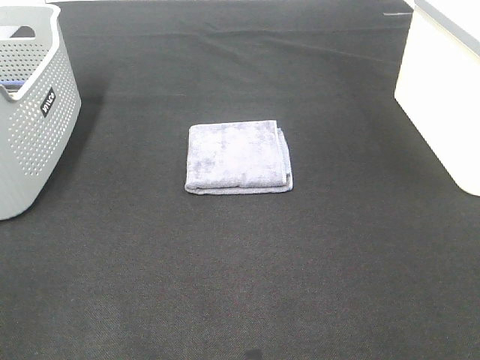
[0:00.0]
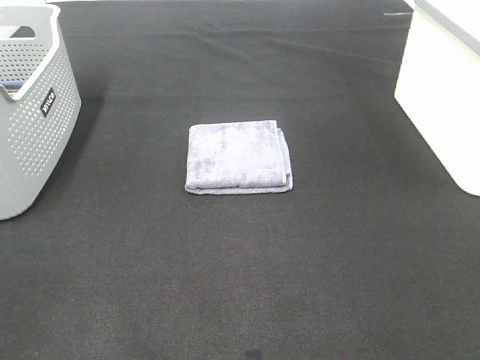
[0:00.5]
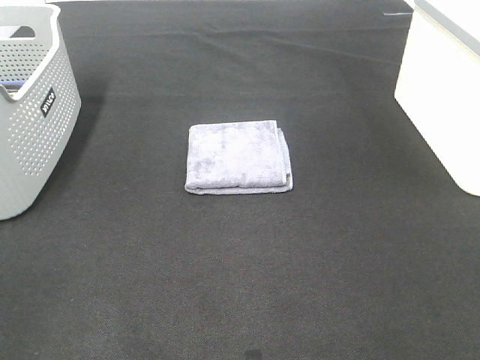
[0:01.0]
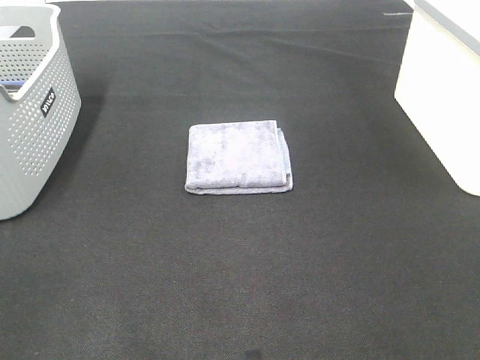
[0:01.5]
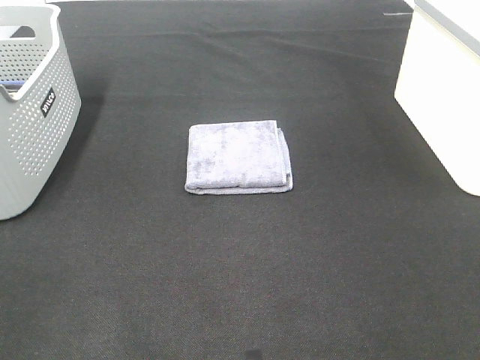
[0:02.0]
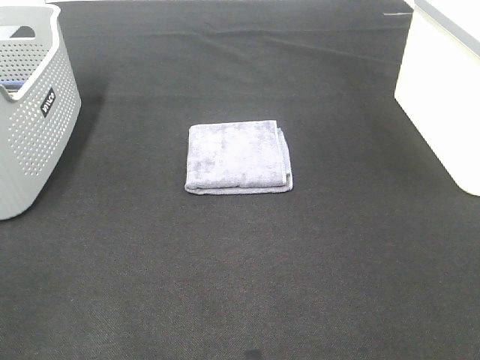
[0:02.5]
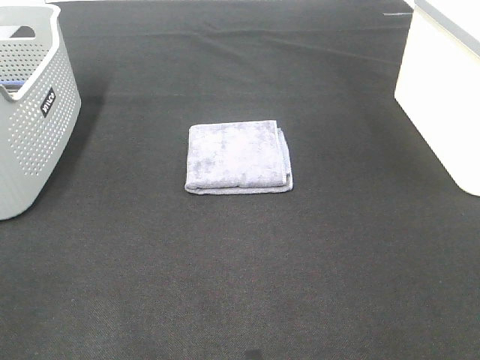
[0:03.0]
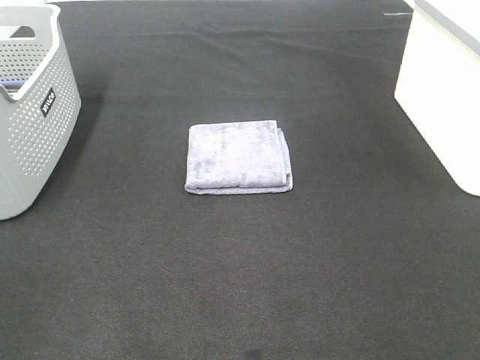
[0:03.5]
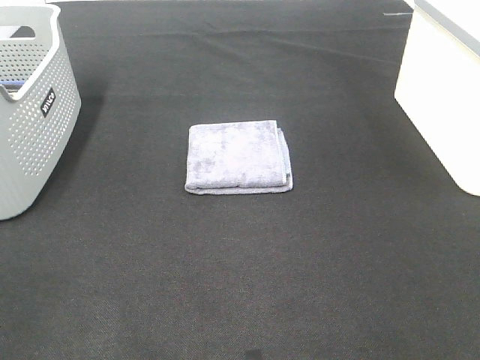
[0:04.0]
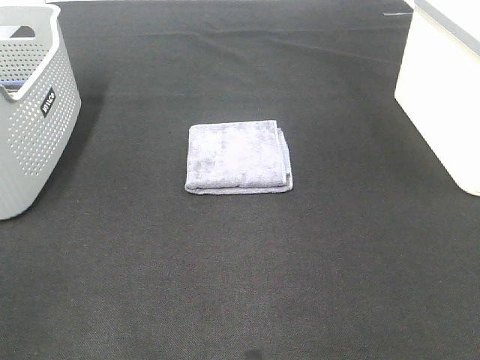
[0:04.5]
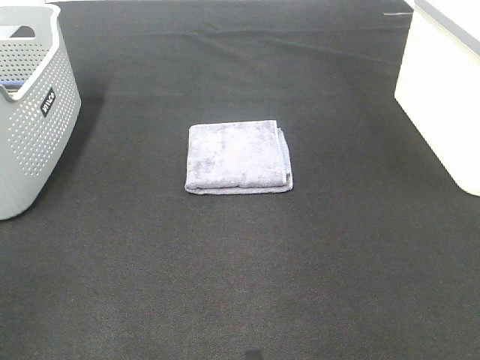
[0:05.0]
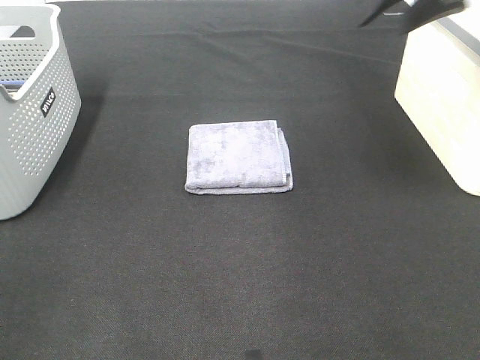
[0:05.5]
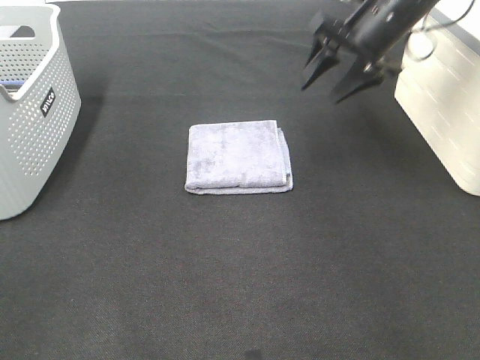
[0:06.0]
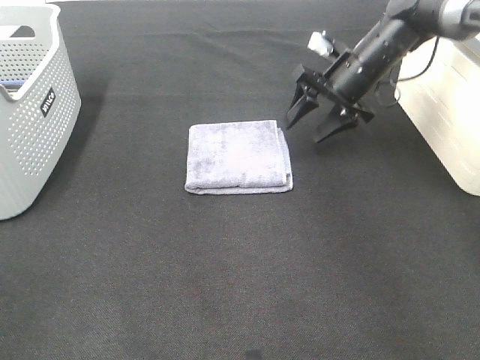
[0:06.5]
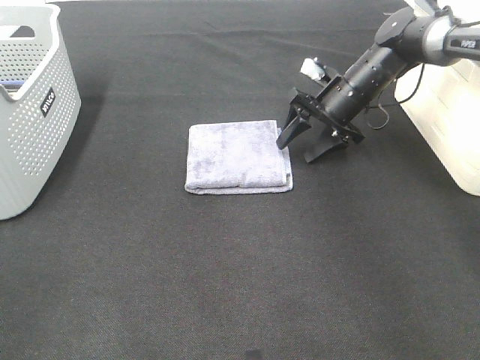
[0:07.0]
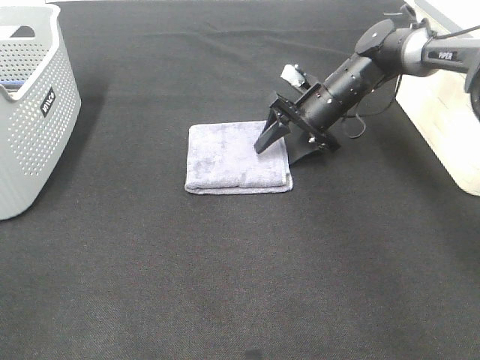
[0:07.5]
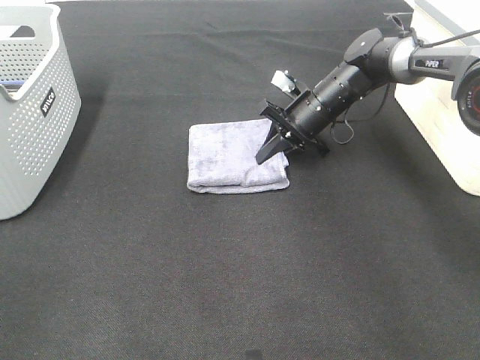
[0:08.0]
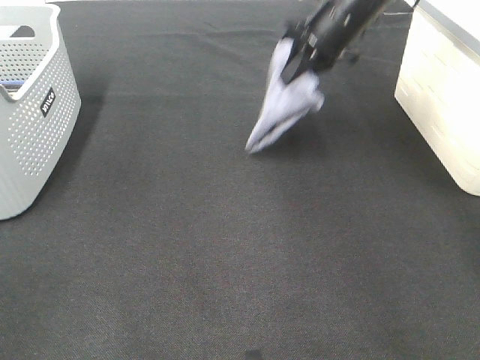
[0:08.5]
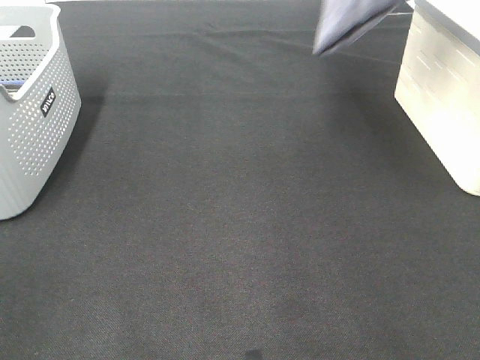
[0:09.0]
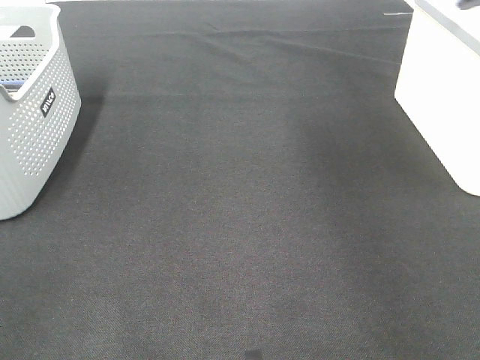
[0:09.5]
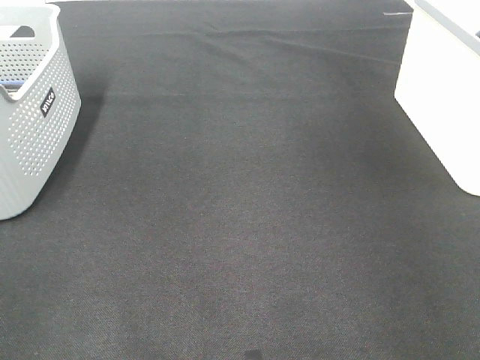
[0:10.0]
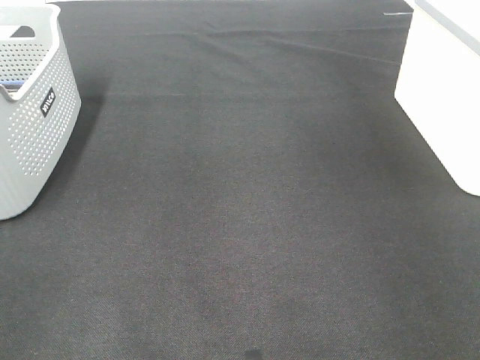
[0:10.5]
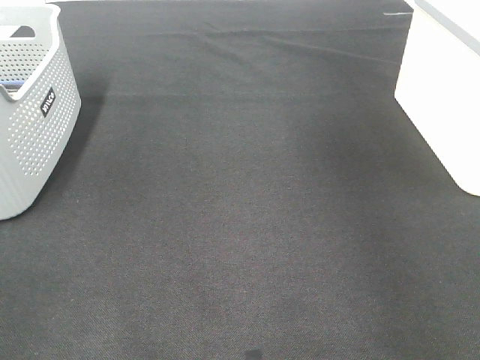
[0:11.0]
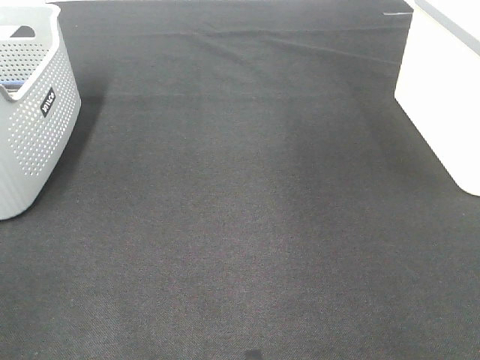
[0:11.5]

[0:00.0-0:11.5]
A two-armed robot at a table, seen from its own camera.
Step, 0:00.0 to 0:08.0: Right hand: grab the folded grey towel.
Step, 0:08.5 to 0:10.0: Right hand: place the grey towel in right basket.
0:00.0 to 0:02.0: Both grippers stay put.
0:04.0 to 0:06.0: The right gripper travels forward by some 40 cm.
0:06.0 to 0:07.5: The right gripper travels downward by approximately 15 cm.
0:07.5 to 0:09.5: The right gripper travels upward and to the right by about 40 cm, and closes its fingers.

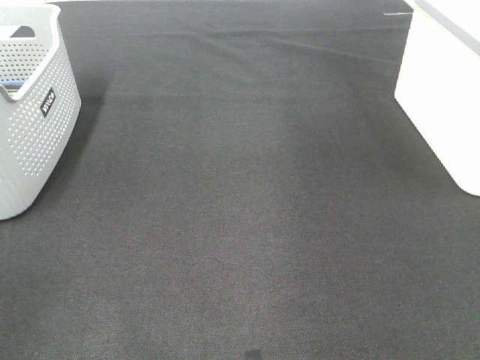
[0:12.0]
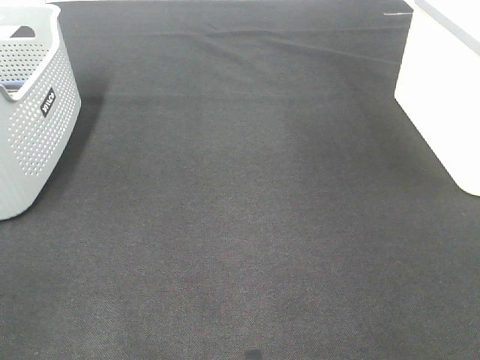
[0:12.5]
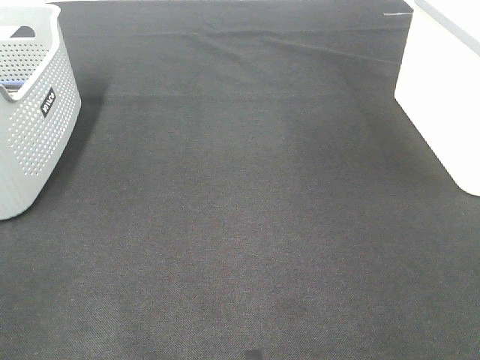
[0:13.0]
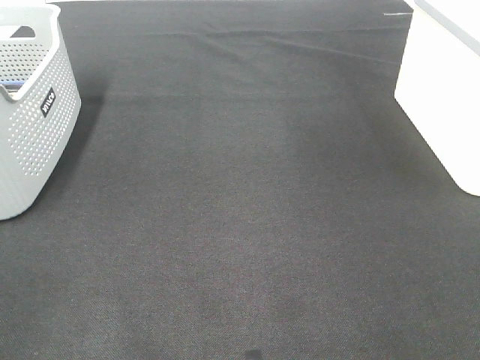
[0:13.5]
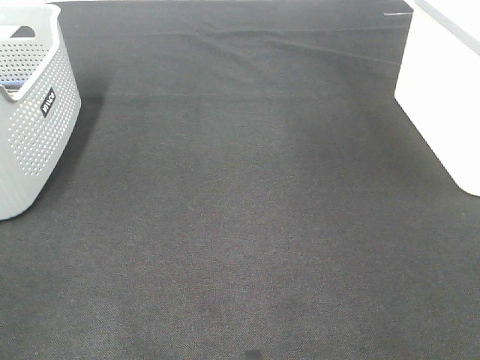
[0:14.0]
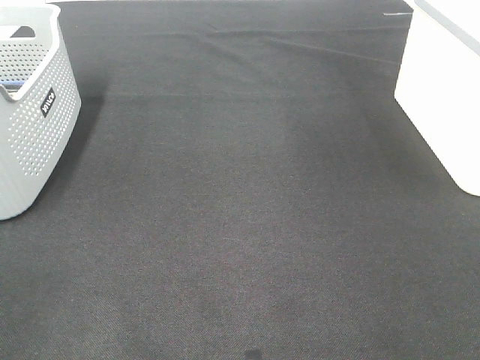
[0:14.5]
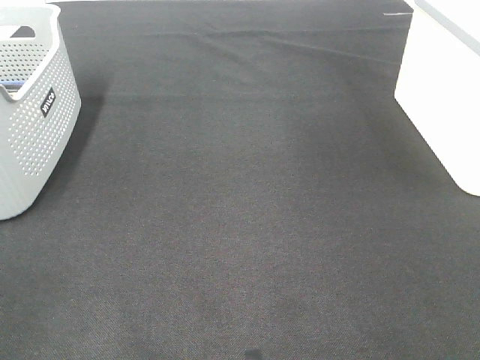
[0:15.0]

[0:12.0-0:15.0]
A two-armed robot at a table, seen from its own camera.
0:13.5 to 0:15.0: Neither gripper changes place.

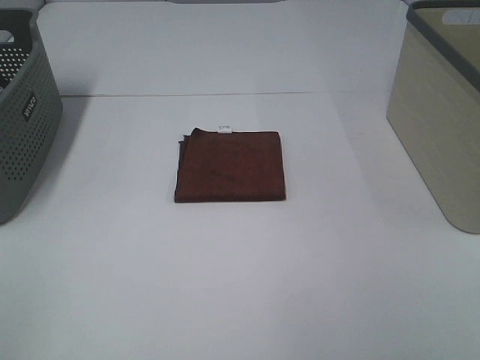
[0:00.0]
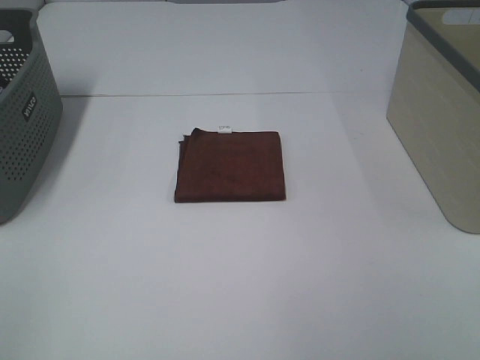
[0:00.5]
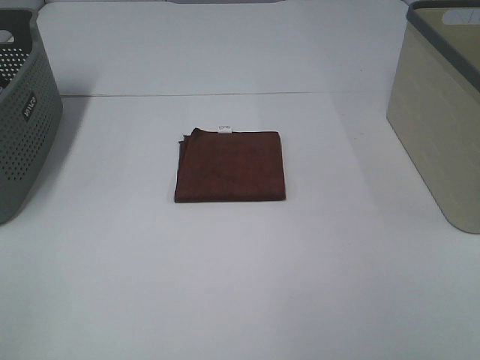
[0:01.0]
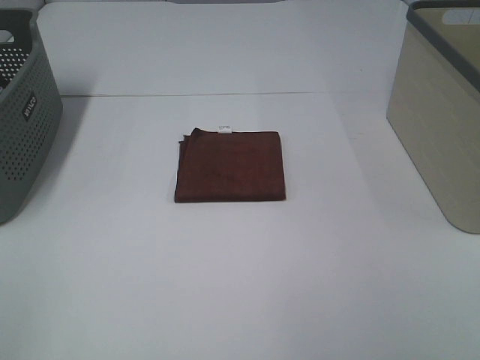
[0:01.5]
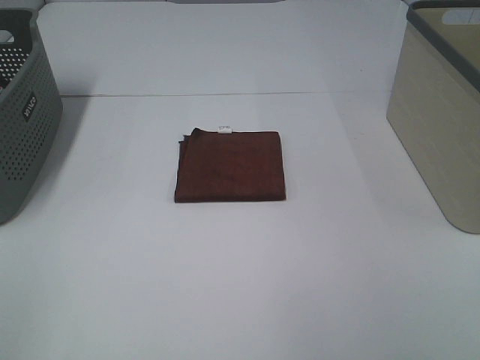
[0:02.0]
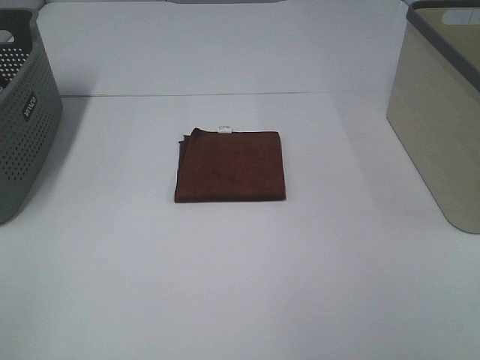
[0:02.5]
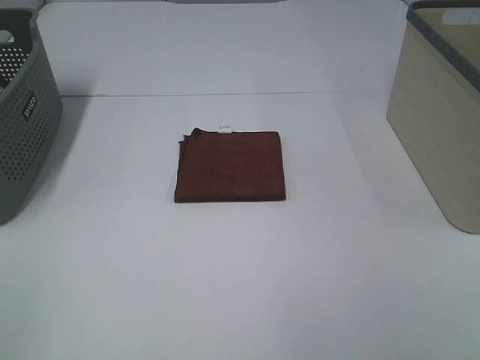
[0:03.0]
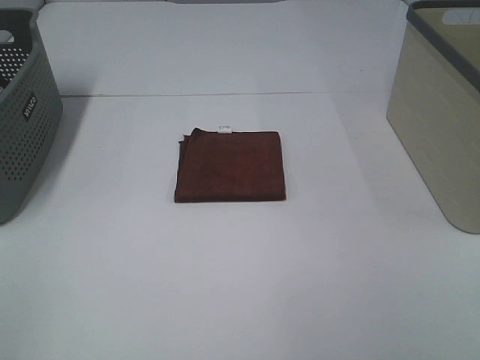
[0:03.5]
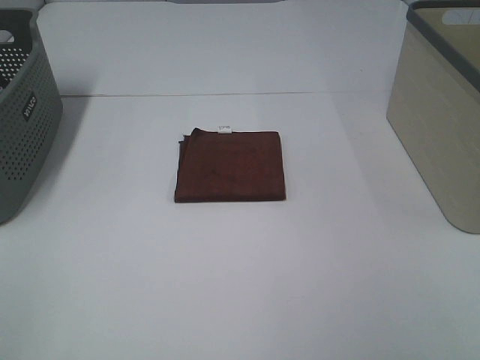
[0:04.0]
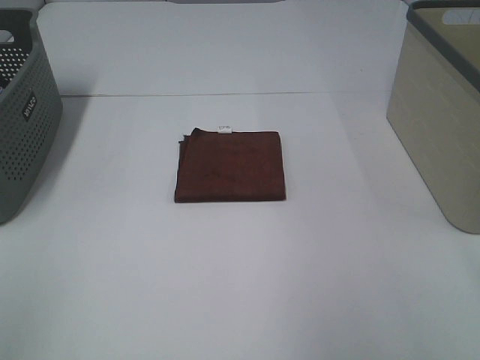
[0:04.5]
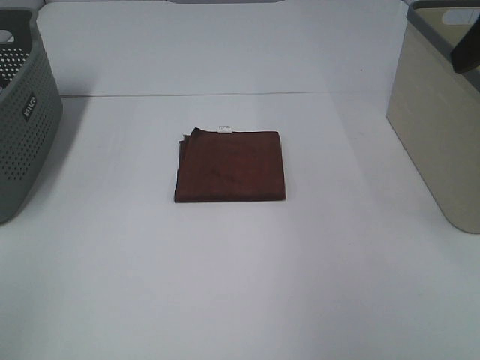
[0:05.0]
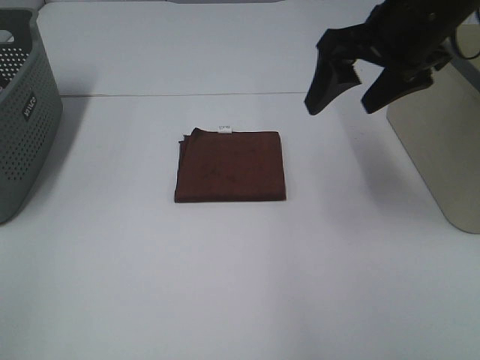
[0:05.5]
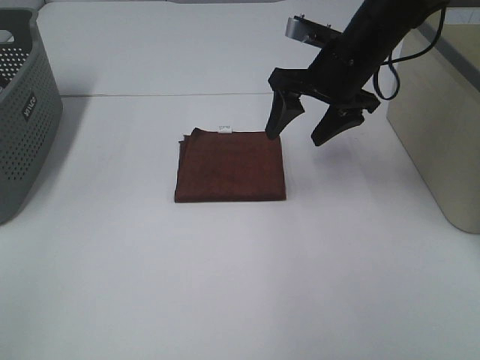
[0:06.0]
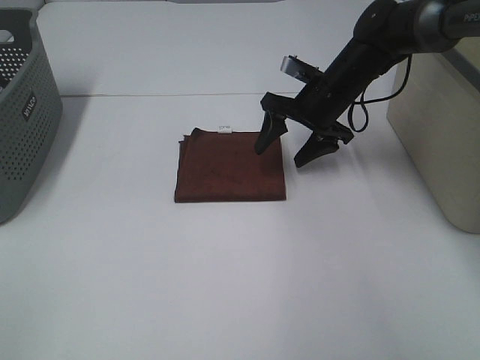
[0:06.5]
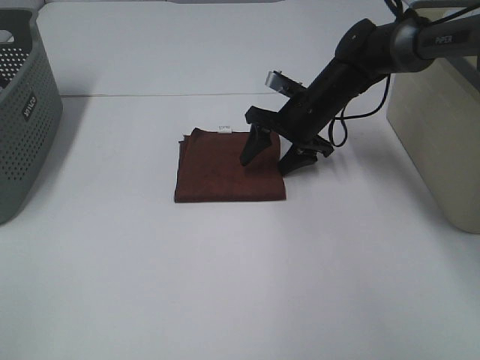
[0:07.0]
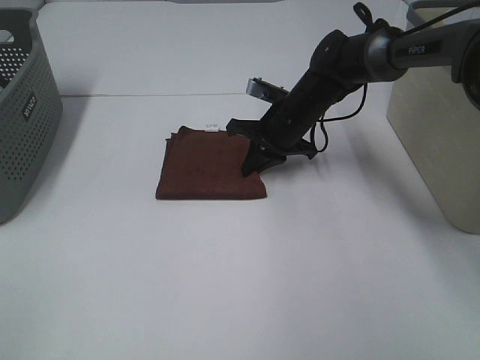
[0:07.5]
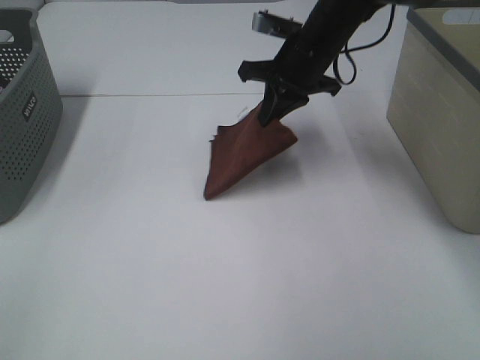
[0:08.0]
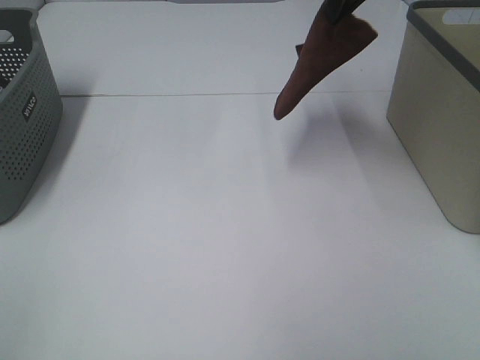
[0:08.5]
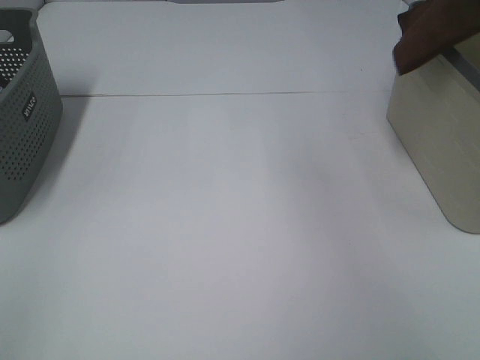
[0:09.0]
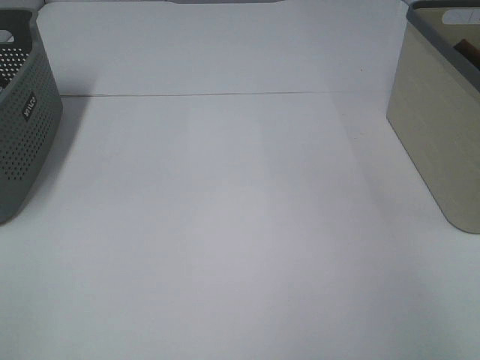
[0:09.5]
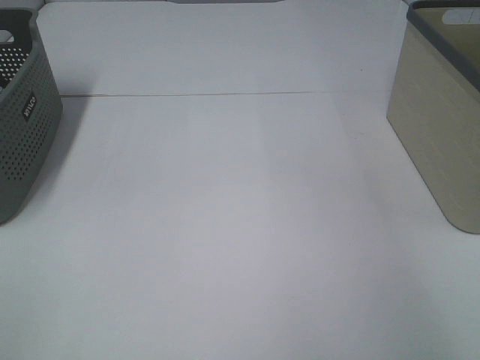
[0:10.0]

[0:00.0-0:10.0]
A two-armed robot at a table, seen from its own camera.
Step, 0:00.0 to 0:07.0: Right hand: grab the folded brown towel.
Step, 0:07.5 to 0:09.5: Right hand: place the brown towel in right basket.
0:00.0 to 0:02.0: Both grippers stay about where they are.
0:04.0 to 0:06.0: The right gripper travels forward and to the left by some 40 cm.
0:06.0 to 0:08.0: The right gripper goes downward and returns, about 10 cm each way, and closes up.
0:08.0 to 0:10.0: The right gripper heads to the right and upward, covering about 35 cm, and opens up.

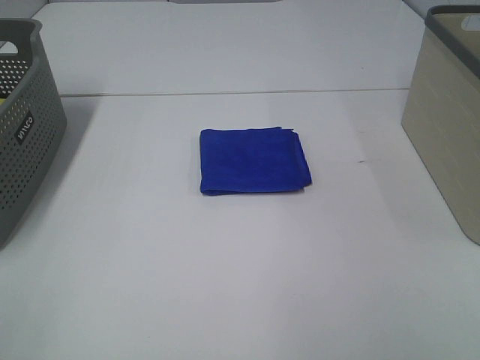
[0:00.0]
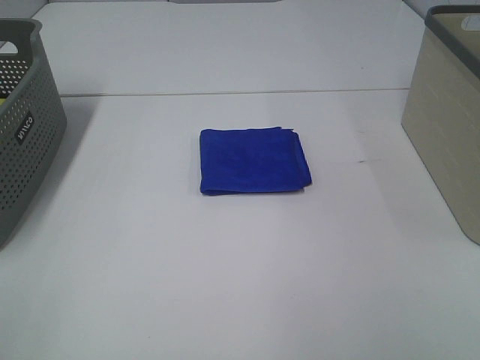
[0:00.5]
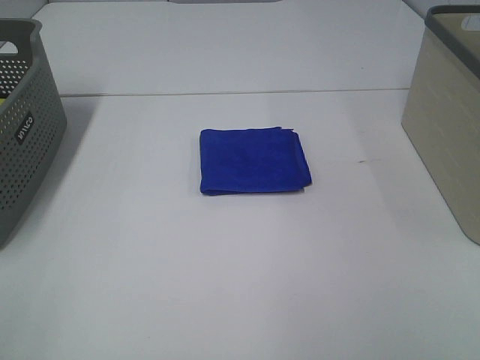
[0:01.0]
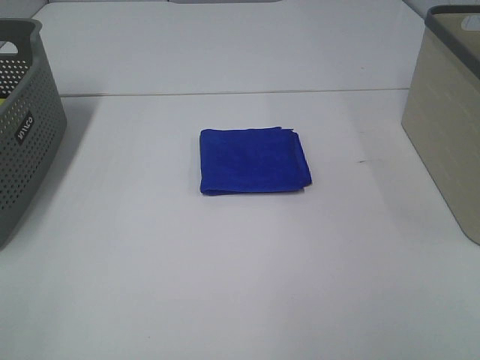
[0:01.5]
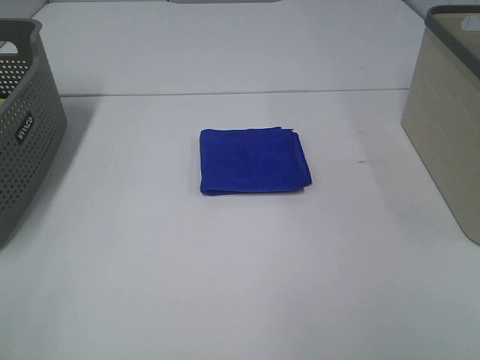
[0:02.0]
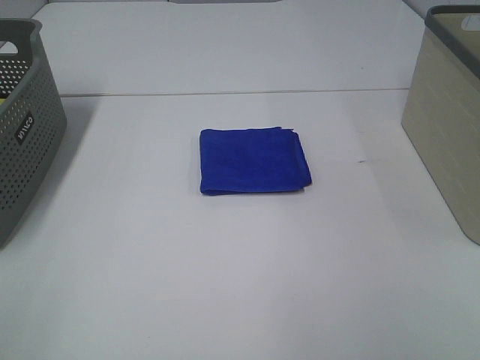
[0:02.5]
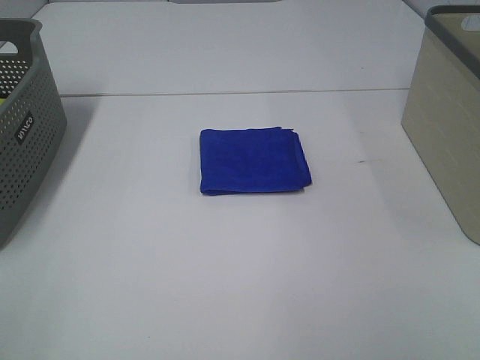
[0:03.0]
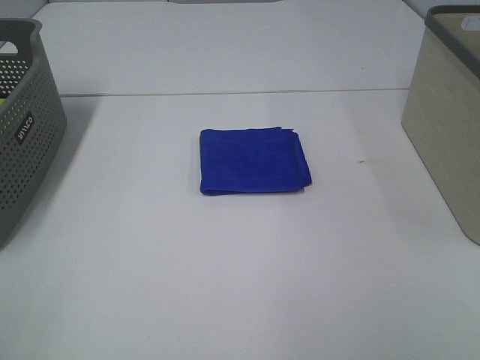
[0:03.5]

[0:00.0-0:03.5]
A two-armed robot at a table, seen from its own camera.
0:00.0 to 0:03.5: The two grippers keep their place.
